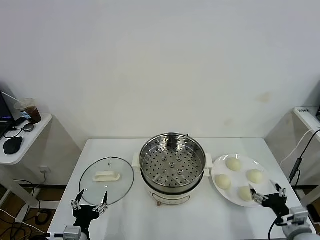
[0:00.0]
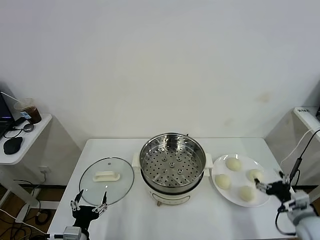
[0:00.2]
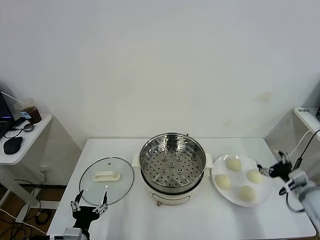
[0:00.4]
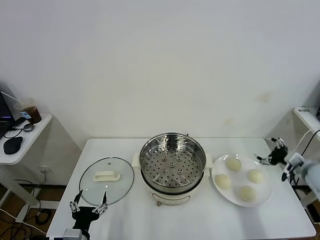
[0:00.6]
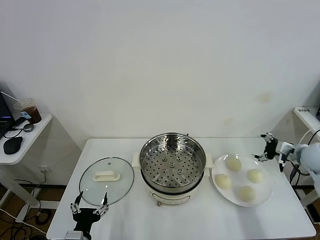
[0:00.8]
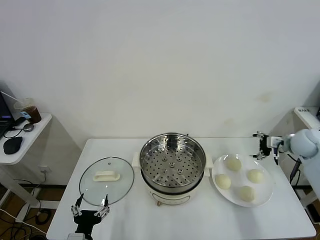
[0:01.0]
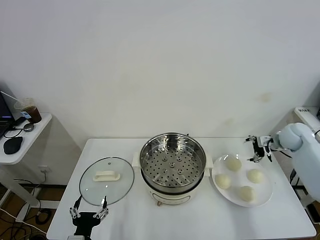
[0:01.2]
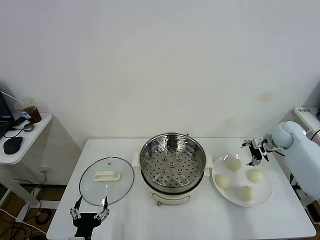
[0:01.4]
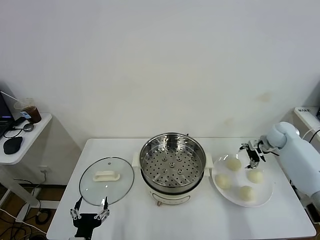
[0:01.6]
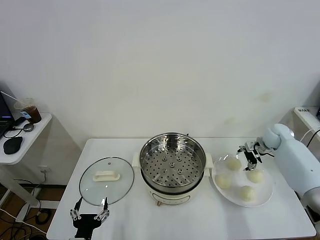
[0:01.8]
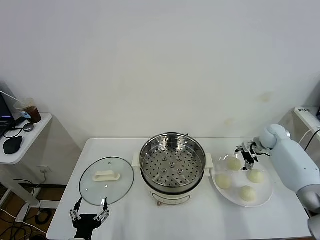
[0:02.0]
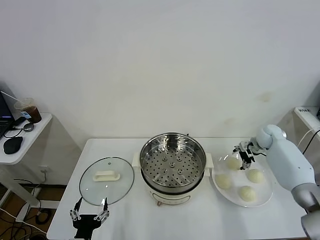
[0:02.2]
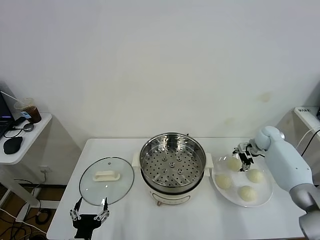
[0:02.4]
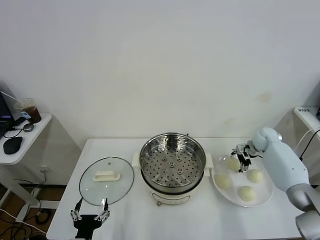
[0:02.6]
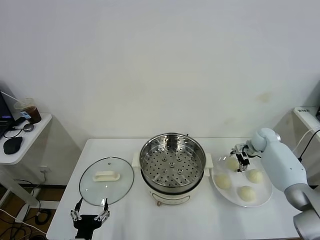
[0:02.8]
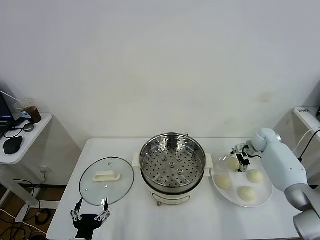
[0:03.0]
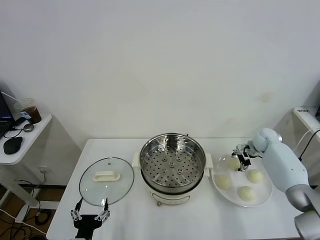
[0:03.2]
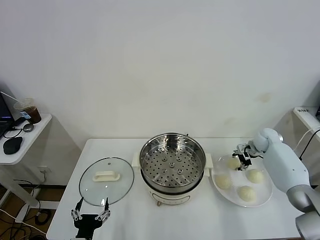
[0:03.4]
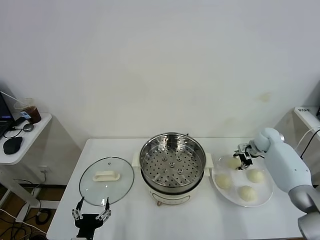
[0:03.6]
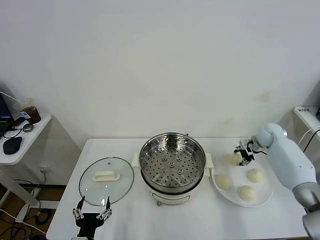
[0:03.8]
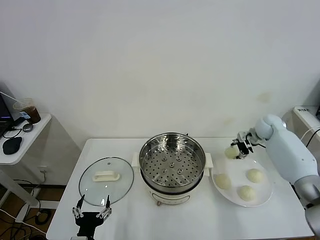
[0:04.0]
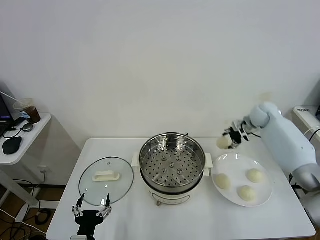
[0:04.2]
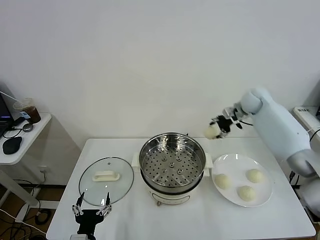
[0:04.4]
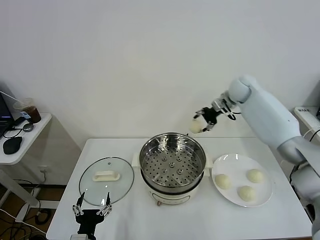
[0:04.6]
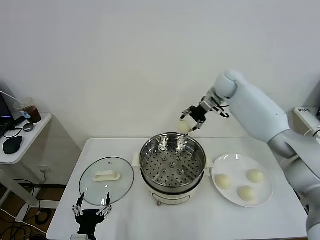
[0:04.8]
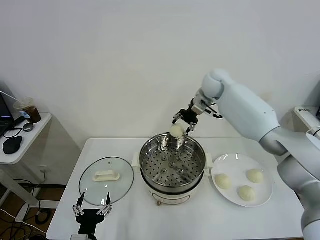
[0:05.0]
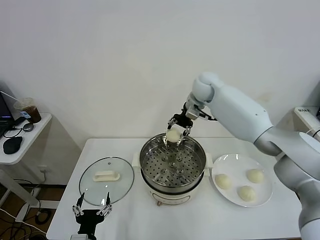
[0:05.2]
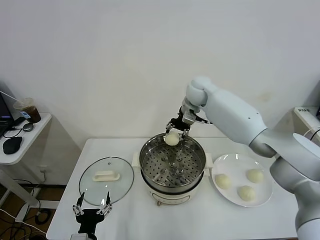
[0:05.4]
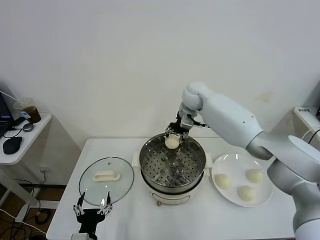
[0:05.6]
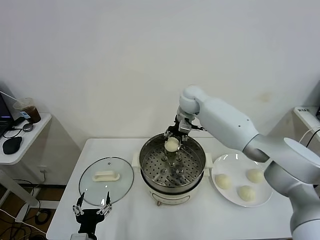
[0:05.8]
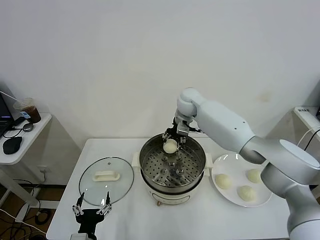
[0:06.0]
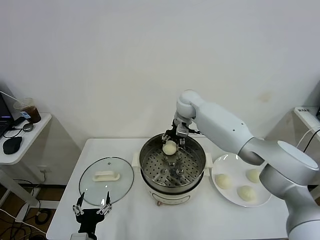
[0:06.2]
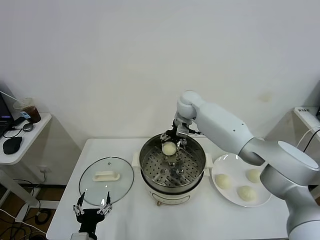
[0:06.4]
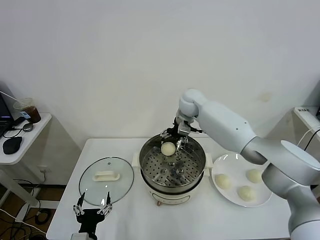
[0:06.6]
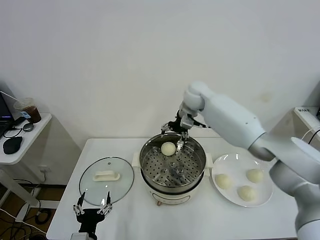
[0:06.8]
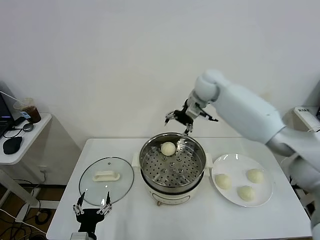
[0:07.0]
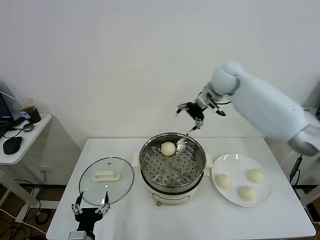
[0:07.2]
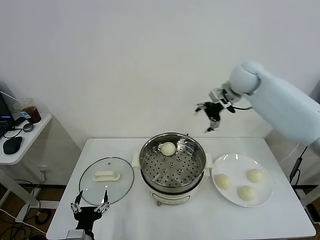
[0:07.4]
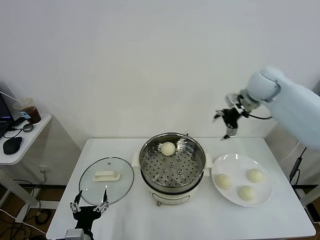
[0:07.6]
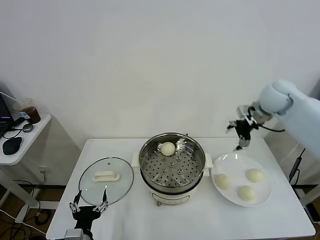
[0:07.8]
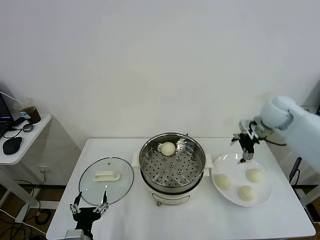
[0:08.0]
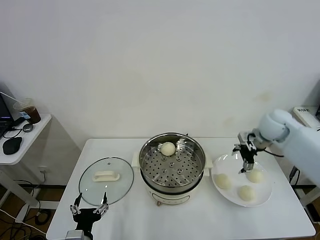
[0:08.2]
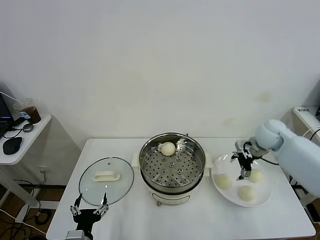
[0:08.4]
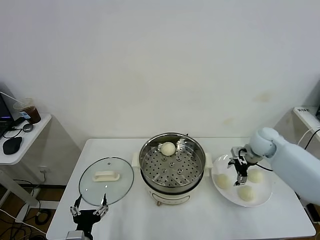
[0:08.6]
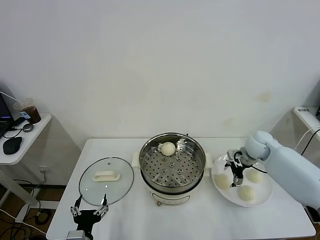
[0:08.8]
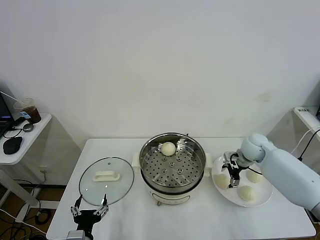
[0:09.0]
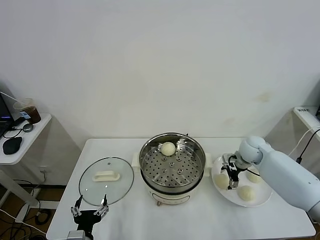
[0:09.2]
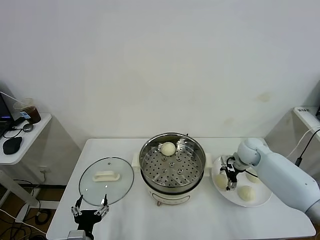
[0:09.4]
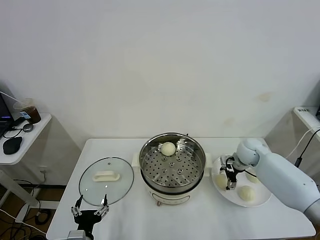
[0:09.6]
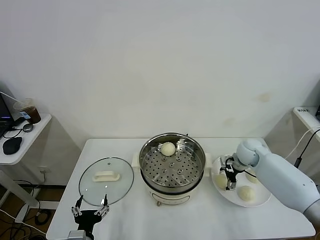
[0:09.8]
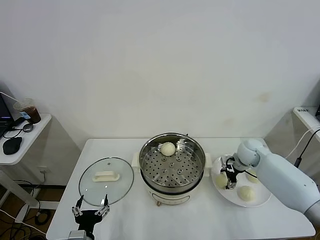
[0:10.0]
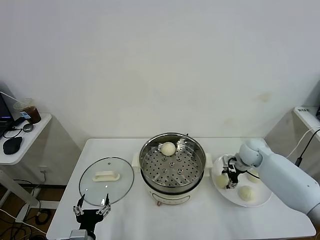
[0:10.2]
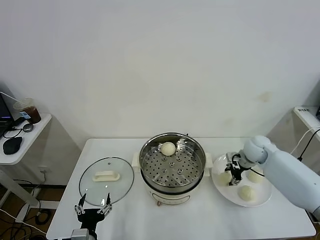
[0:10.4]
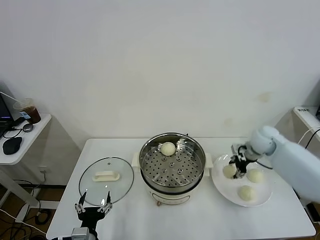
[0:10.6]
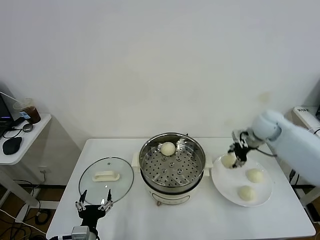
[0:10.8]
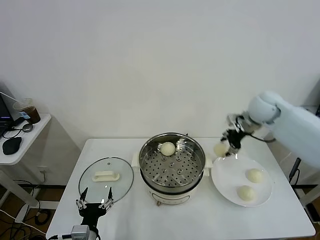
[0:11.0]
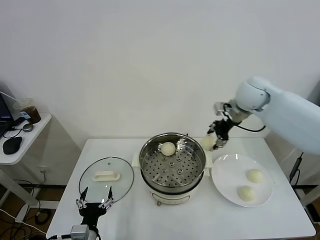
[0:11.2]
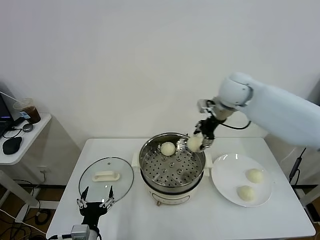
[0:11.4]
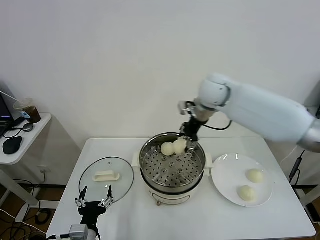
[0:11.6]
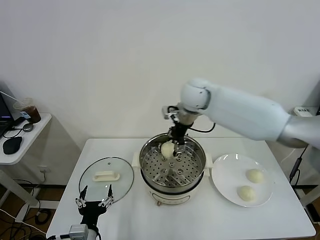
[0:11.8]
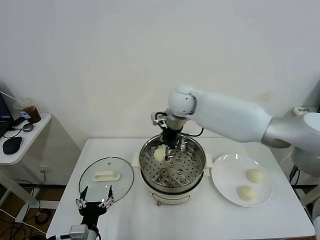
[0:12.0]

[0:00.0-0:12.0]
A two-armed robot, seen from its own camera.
Task of the whole recording: take steamed baozi put them in steamer.
Step, 0.0 to 3.4 s: Grasp the baozi in the plate with right gripper.
Step, 3.6 to 6.6 s: Place the baozi on the steamer with right gripper.
Step, 6.8 to 10.2 s: Grasp the baozi in the plate with right gripper.
1.6 to 3.0 s: The right gripper is displaced downward by about 5 cm.
3.0 to 4.4 s: The right gripper moves upward and to the left, some 20 cm, and closes up.
4.4 to 6.0 s: The right gripper goes about 25 cm to the left.
6.0 to 7.6 s: The right gripper heads to the right and upward, covering approximately 25 cm, and opens its fingers.
7.6 to 9.0 s: The right gripper heads downward, covering approximately 25 cm.
9.0 to 10.4 s: The right gripper closes.
10.4 to 12.0 s: The right gripper heads to the left and upward, covering approximately 35 cm.

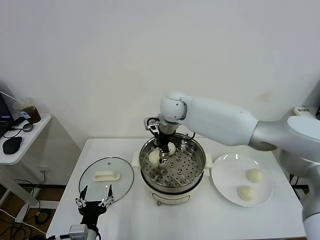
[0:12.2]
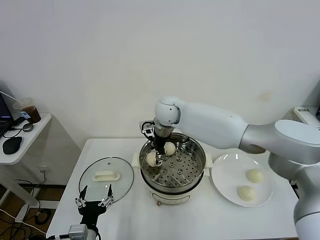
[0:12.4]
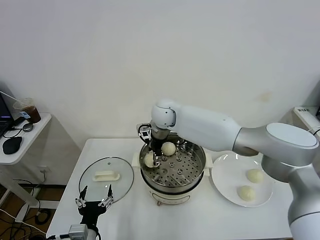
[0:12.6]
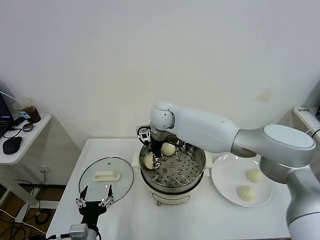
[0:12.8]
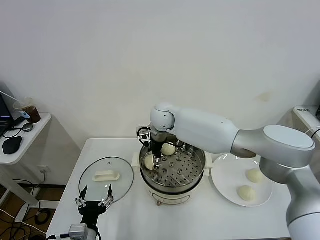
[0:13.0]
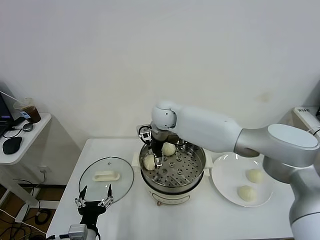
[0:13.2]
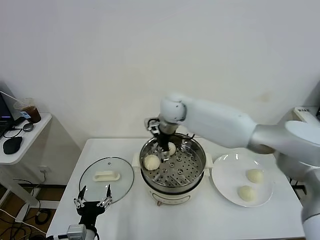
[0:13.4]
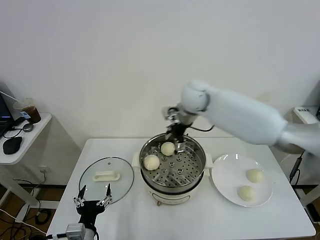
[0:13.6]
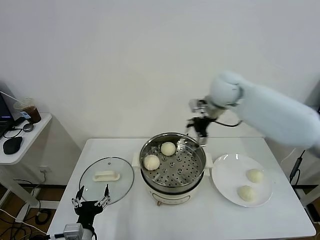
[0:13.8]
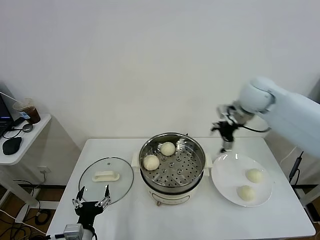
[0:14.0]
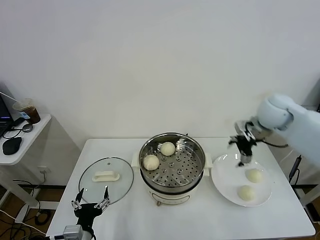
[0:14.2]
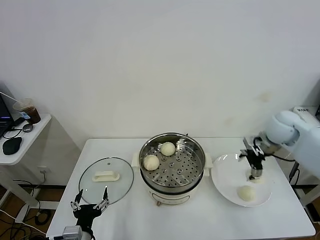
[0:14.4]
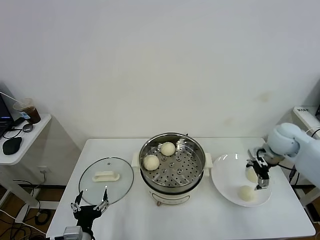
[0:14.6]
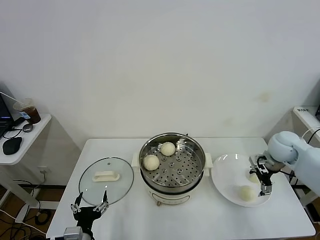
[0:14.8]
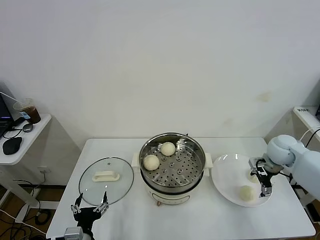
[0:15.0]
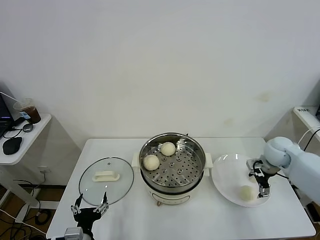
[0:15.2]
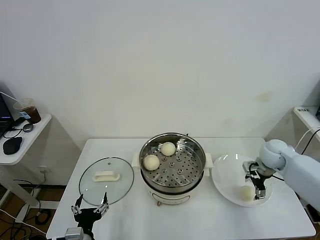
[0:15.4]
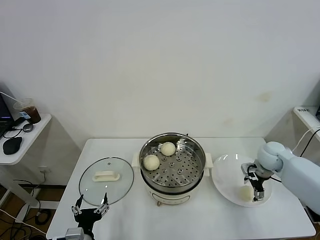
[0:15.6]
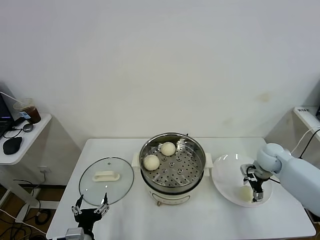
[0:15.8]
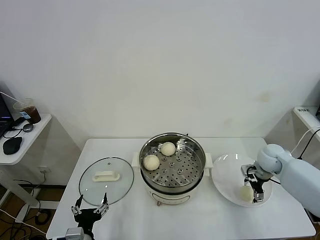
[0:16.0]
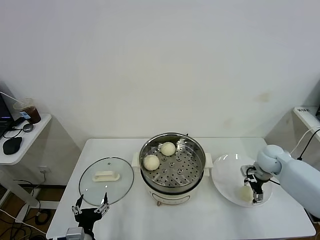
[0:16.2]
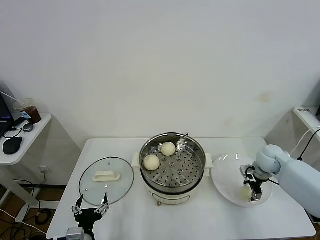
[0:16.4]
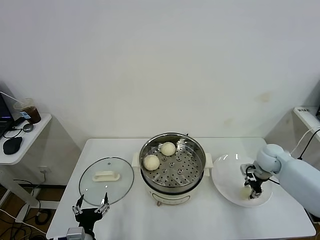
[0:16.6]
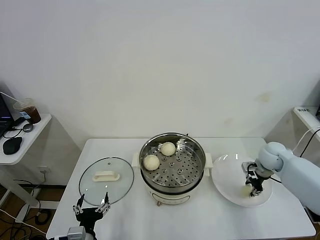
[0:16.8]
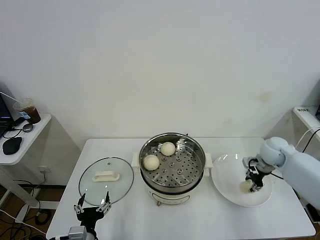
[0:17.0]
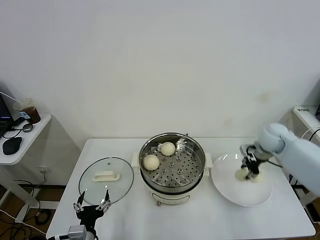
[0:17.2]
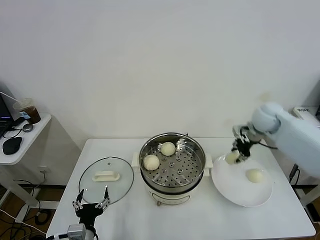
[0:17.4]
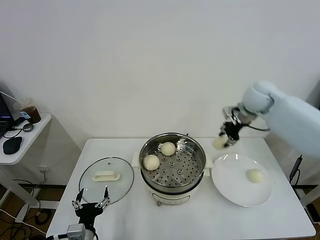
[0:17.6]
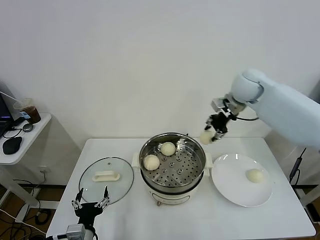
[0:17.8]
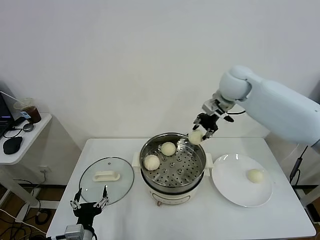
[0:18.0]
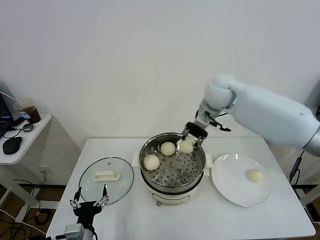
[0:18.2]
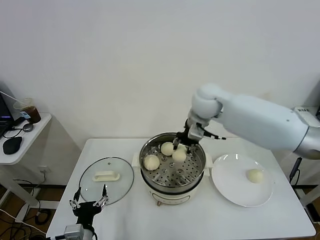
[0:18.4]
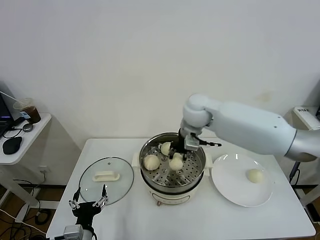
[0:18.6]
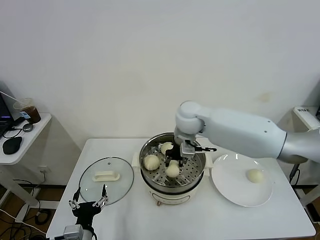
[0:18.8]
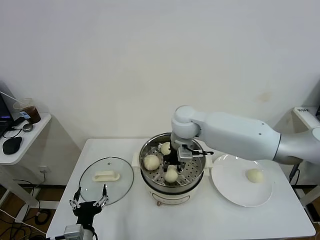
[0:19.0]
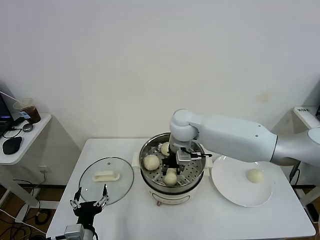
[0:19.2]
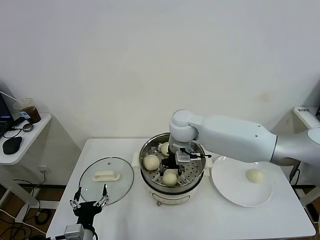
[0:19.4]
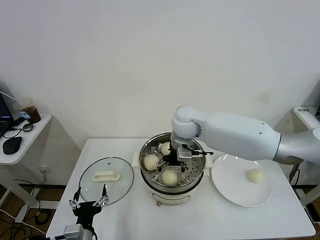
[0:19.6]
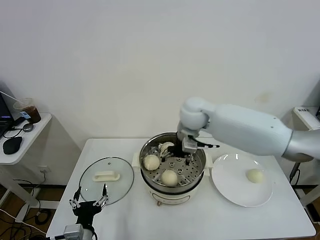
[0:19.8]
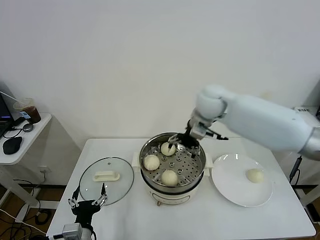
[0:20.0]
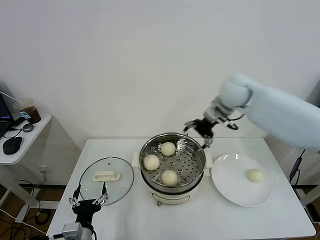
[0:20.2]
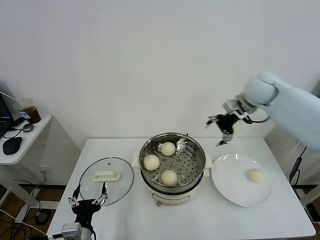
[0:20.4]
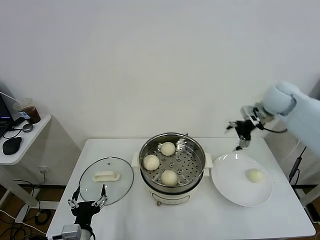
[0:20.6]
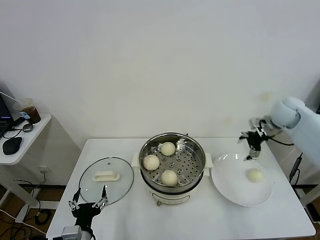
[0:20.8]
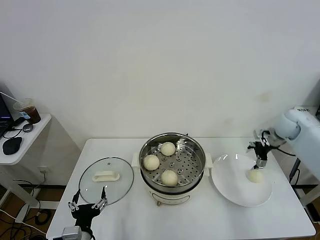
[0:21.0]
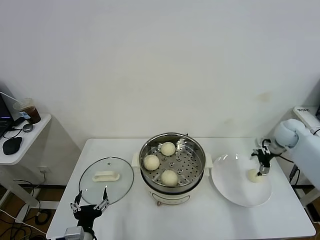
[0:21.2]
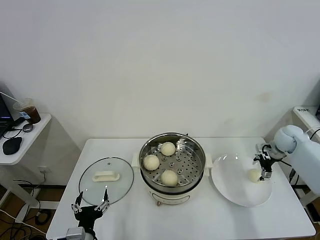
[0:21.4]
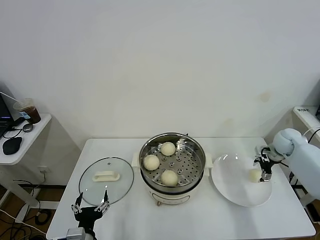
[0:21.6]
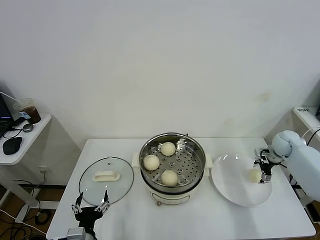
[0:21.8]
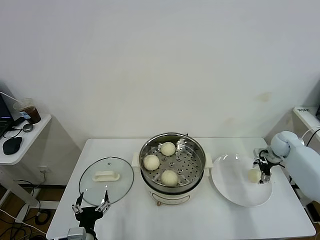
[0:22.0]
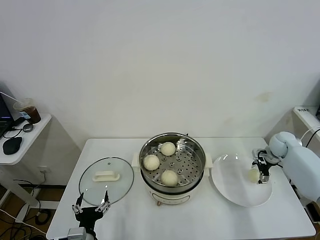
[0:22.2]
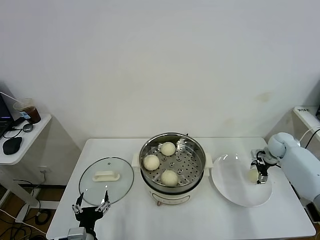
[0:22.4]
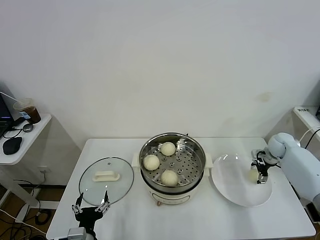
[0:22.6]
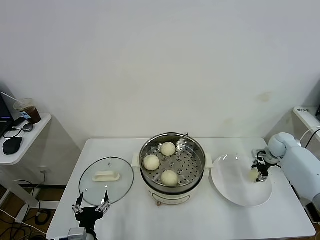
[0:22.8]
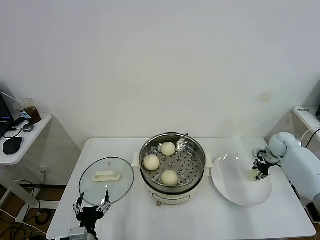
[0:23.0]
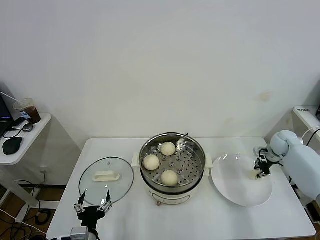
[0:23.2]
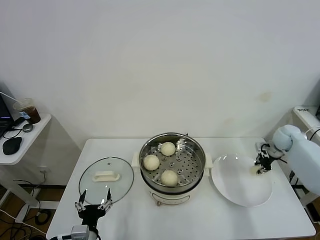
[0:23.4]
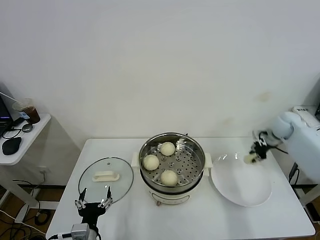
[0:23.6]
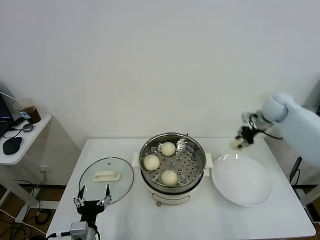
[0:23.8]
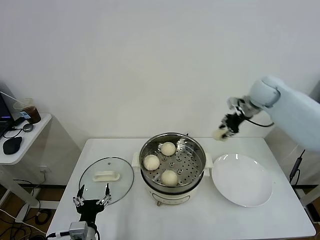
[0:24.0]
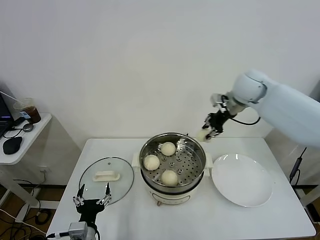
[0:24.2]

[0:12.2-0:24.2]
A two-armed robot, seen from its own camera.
Task of the whole recording: take steamed baozi put them in steamer.
Step, 13.4 to 16.6 s: Grasp the baozi in the plate with right gripper.
Step, 16.8 to 19.6 s: Place the baozi on the steamer with right gripper.
Step, 19.8 to 23.2 s: Grasp the baozi in the plate with right gripper.
12.2 to 13.8 s: The right gripper is displaced to the right and upward by about 20 cm, and opens.
13.8 to 15.2 s: The right gripper is displaced to the right and downward by roughly 30 cm.
15.2 to 16.6 s: The right gripper closes.
16.6 to 18.2 s: The right gripper goes roughly 30 cm upward and to the left.
18.2 to 19.8 s: The right gripper moves to the left and downward, approximately 10 cm, and opens.
19.8 to 21.2 s: The right gripper is displaced to the right by about 35 cm.
21.2 to 22.6 s: The right gripper shifts approximately 10 cm downward.
22.6 to 24.2 s: The right gripper goes about 30 cm upward and to the left, and closes up.
